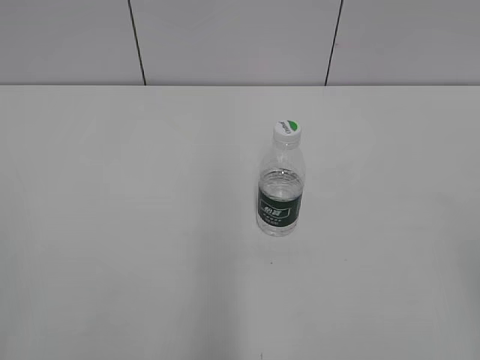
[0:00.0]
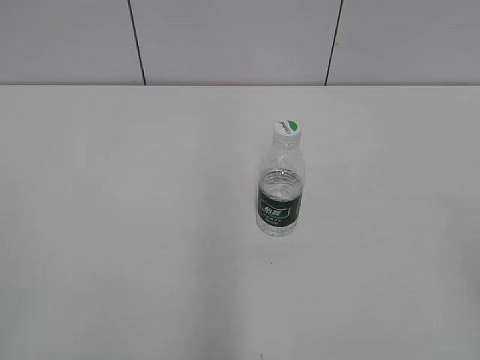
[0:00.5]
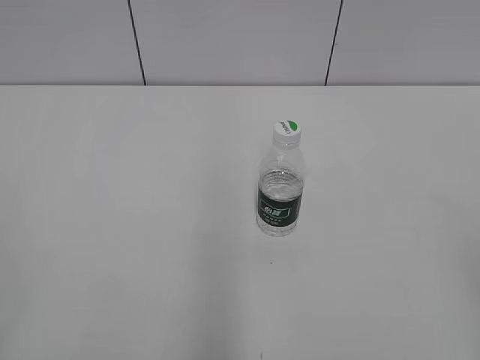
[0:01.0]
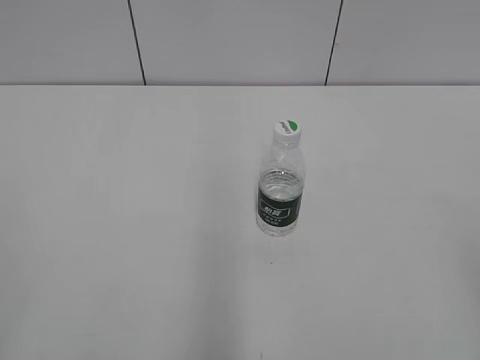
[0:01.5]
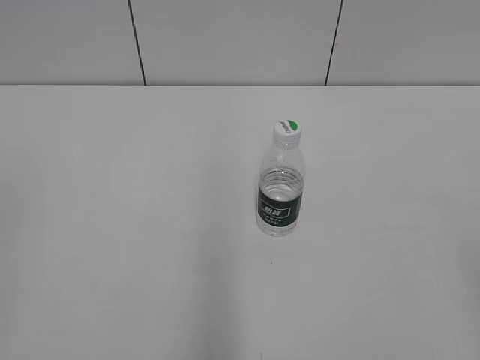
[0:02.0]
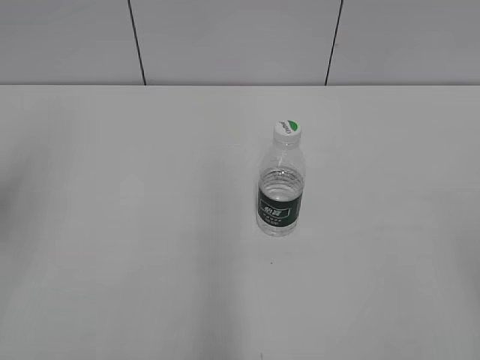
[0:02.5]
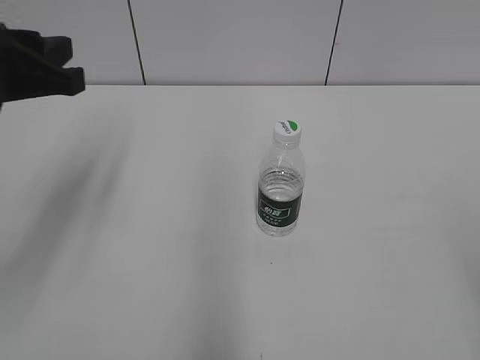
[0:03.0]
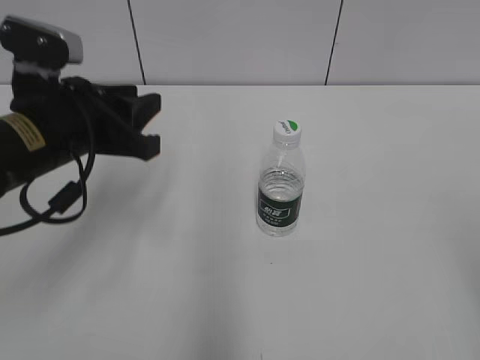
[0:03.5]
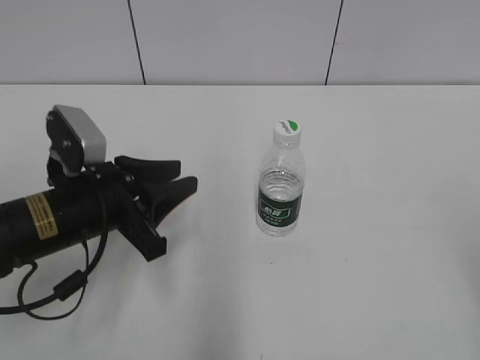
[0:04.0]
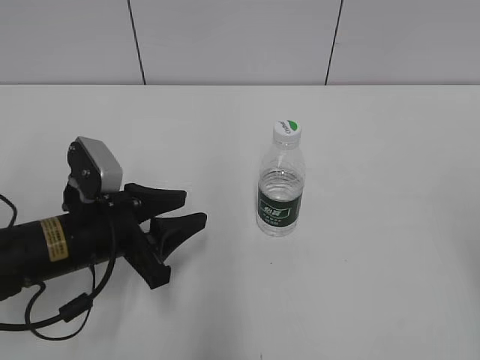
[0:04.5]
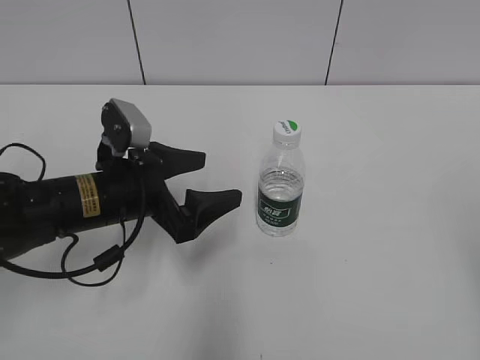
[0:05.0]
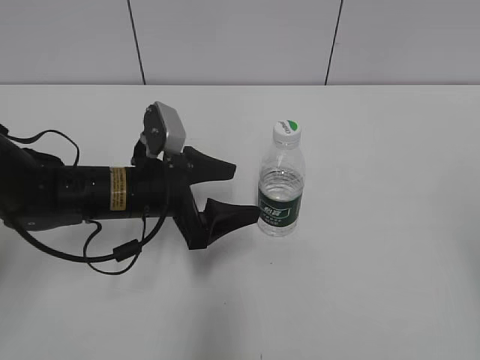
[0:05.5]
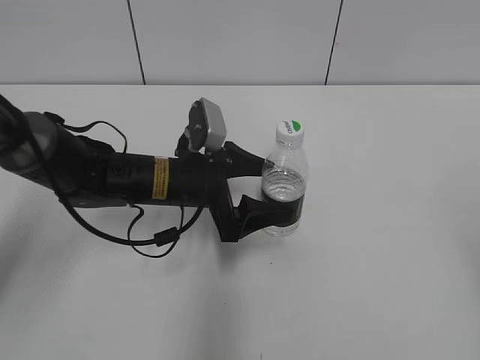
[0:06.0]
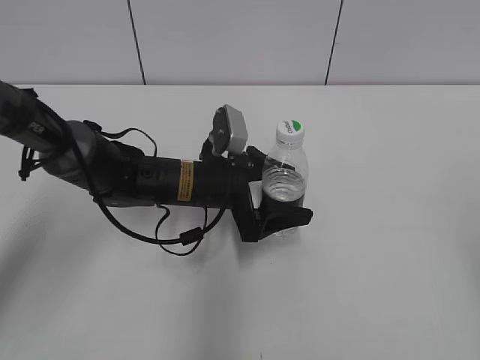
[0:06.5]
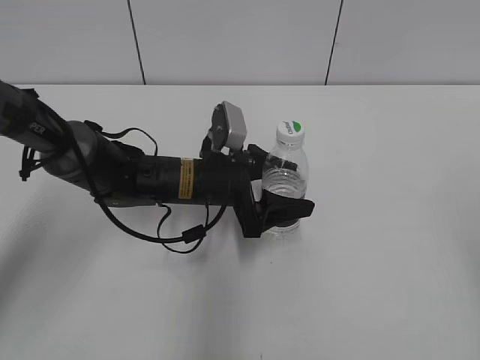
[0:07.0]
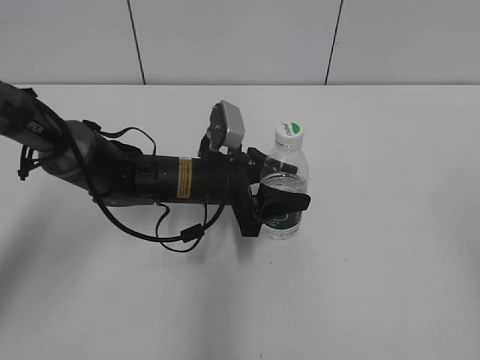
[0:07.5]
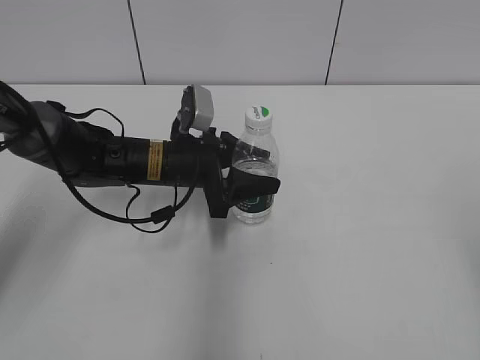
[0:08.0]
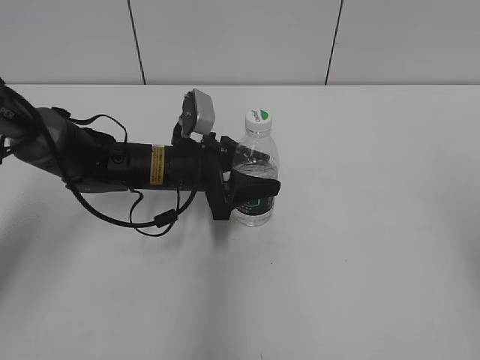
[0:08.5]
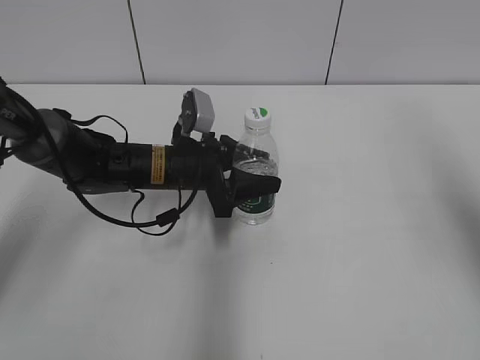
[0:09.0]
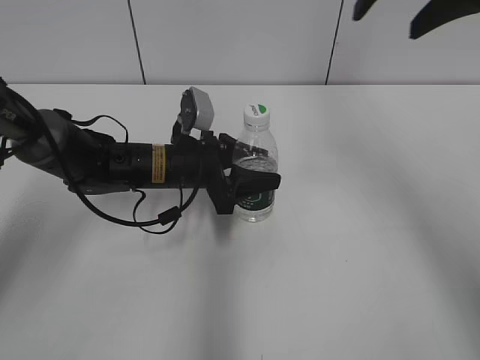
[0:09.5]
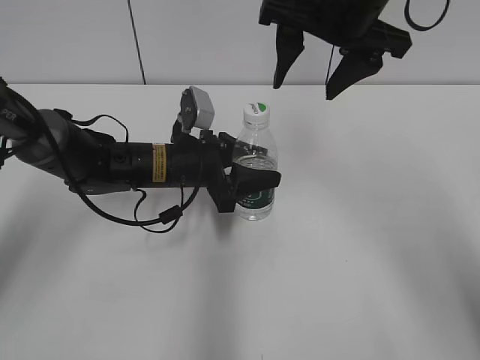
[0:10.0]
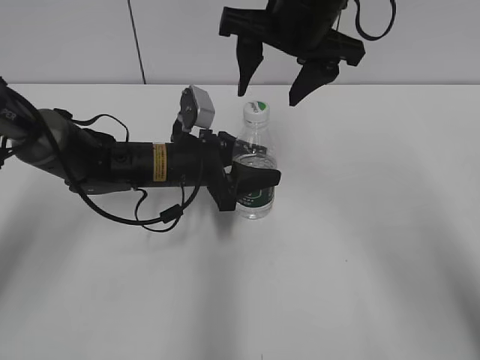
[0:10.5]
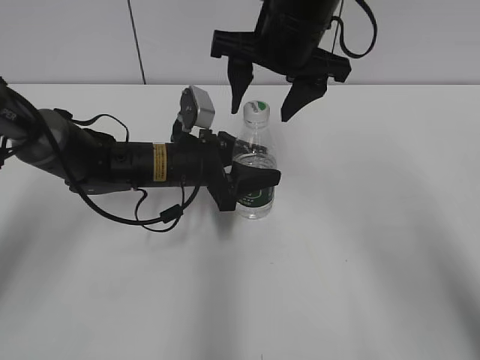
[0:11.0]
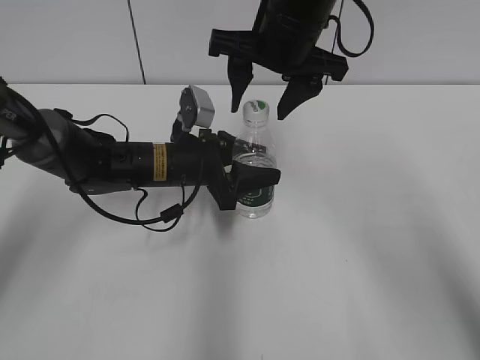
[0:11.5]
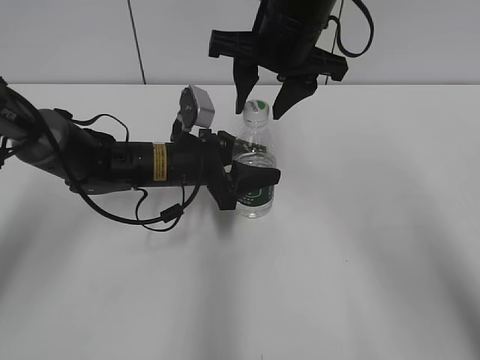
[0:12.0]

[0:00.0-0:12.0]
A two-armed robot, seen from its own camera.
Step, 0:00.0 to 0:07.0: Grasp the bottle and move it to the center of the table with the left gripper.
Step, 0:07.5 to 0:08.5: Lift the bottle and move it to the center of the table with the left gripper.
0:02.0 to 0:04.0: The left gripper travels forward, downward and to the right by about 35 cm.
0:04.0 to 0:06.0: The left gripper is displaced to the right and forward by some 10 cm, and opens.
0:06.0 to 0:08.0: The left gripper closes up.
0:08.0 to 0:10.0: The right gripper heads forward and to the left, covering some 35 cm.
0:10.0 to 0:12.0: The right gripper travels to the left by roughly 5 cm, and closes its fingers.

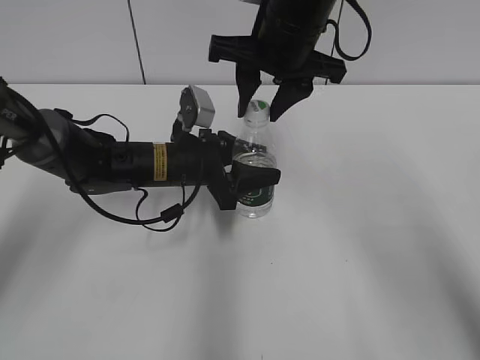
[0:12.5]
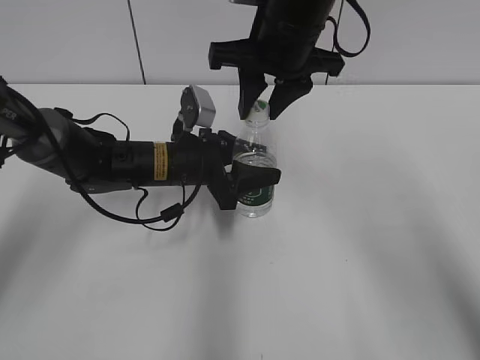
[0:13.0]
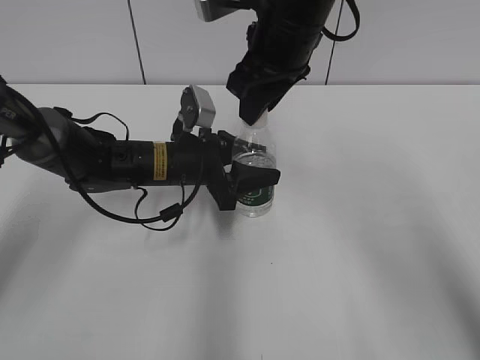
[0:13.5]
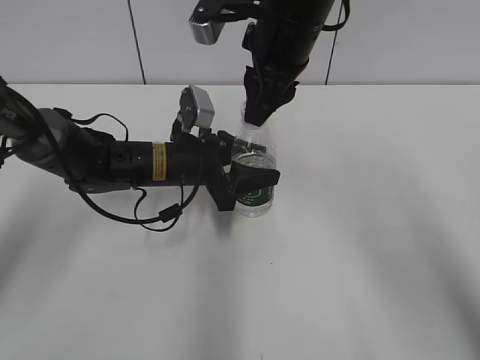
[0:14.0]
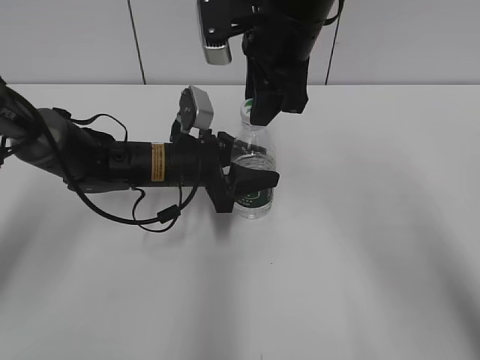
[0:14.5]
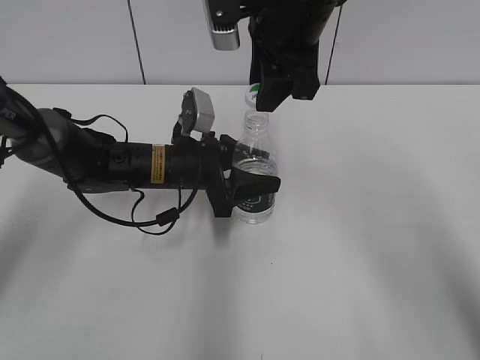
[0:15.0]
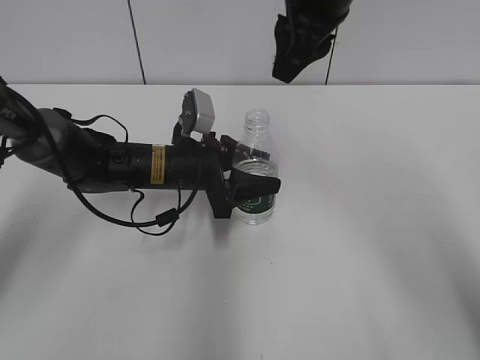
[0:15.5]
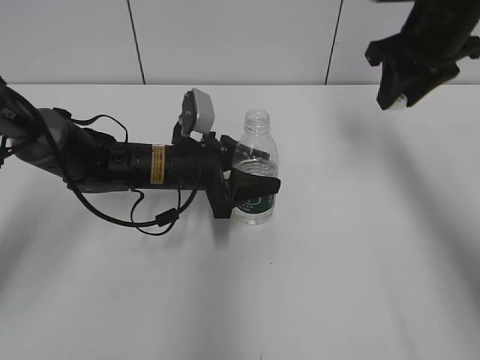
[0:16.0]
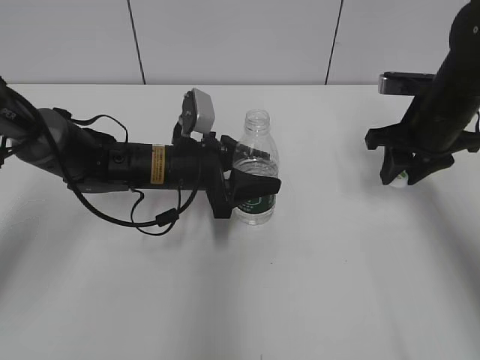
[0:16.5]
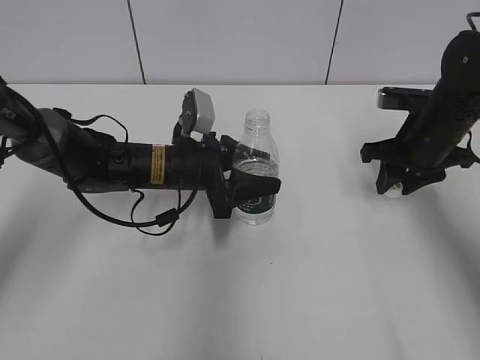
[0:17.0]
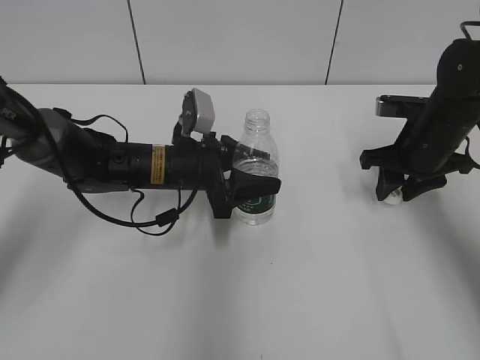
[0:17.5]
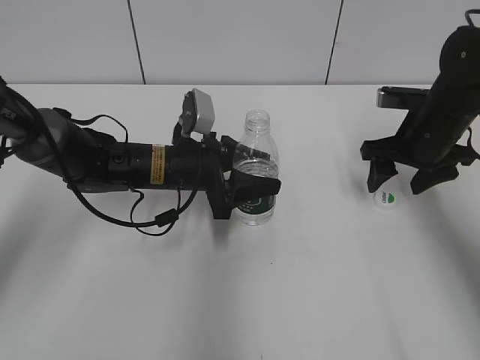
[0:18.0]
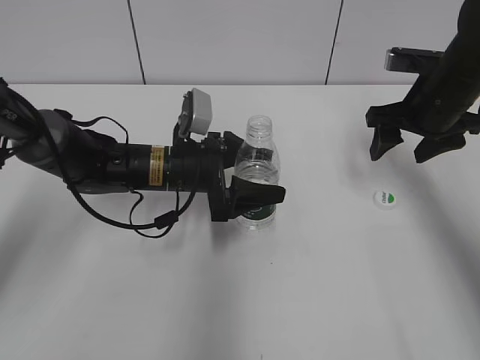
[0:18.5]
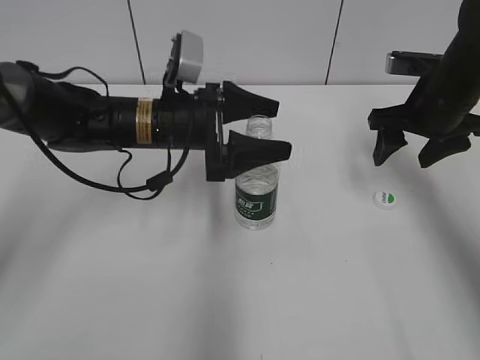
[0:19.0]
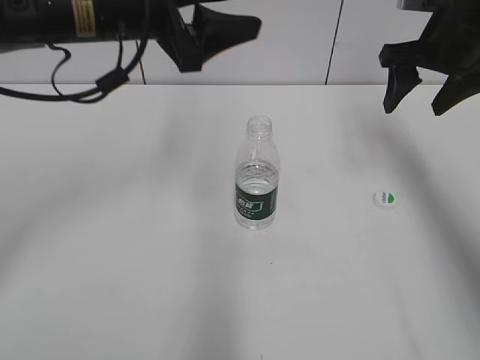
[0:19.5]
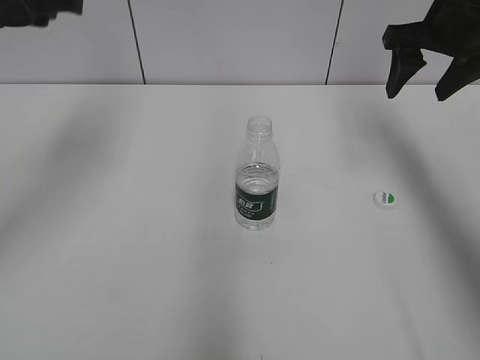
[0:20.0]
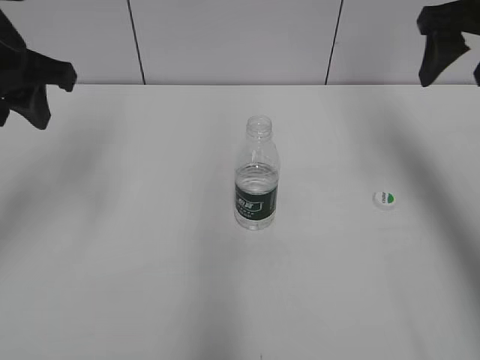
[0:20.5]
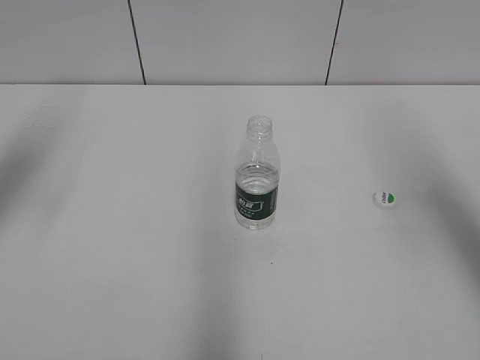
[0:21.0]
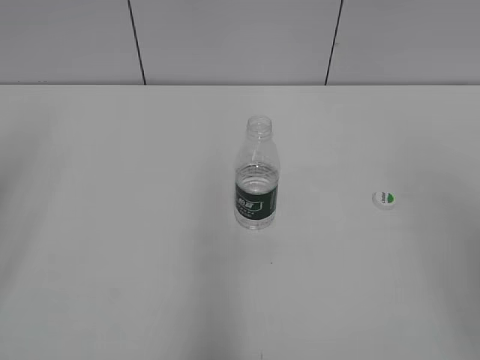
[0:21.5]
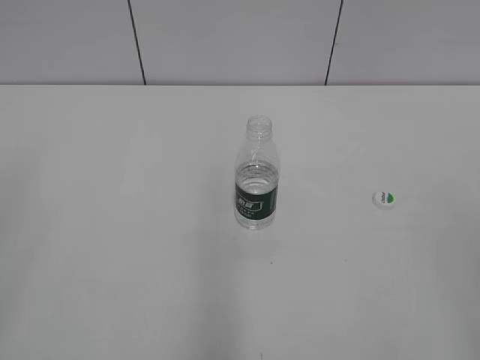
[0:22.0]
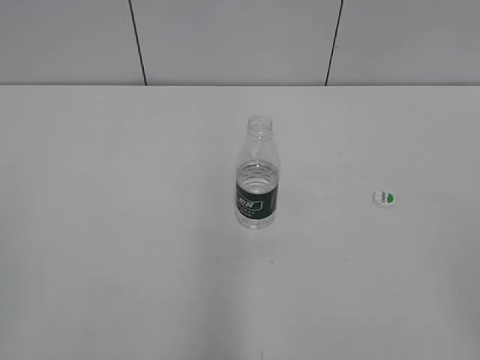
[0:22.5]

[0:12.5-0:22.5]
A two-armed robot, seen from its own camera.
Step, 0:12.5 to 0:15.5: Unscrew the bottle cap with the right gripper while holding the bottle with the left gripper.
Step, 0:16.0 to 0:18.0: Place the bottle cap on the table with the right gripper.
Step, 0:18.5 to 0:19.5: Place the bottle on the table with the left gripper.
0:14.5 to 0:16.5: The right gripper heads to the right and downward, covering some 20 cm.
0:16.5 to 0:18.5: The left gripper opens its fingers. Meanwhile the right gripper opens up.
0:18.5 to 0:20.5: The left gripper travels upward and to the left by about 25 cm, and closes up; the right gripper heads upward, covering about 15 cm.
0:20.5 to 0:22.5: The two grippers go roughly 35 cm backward.

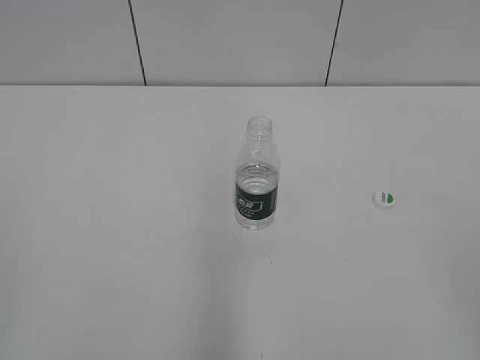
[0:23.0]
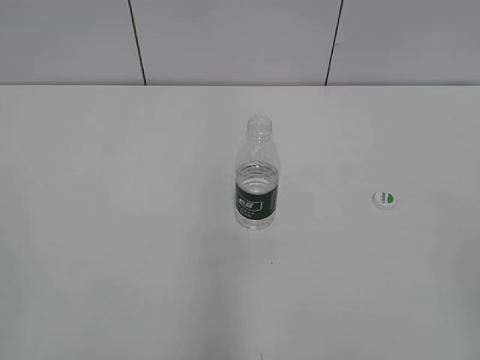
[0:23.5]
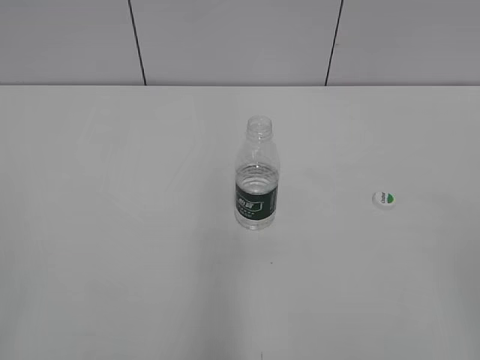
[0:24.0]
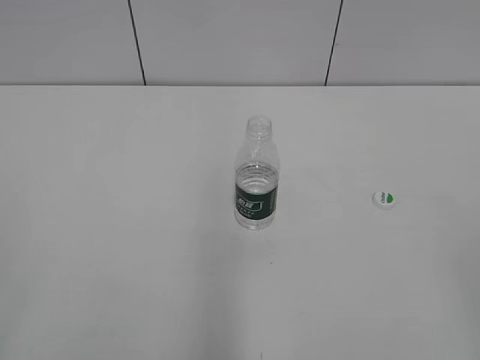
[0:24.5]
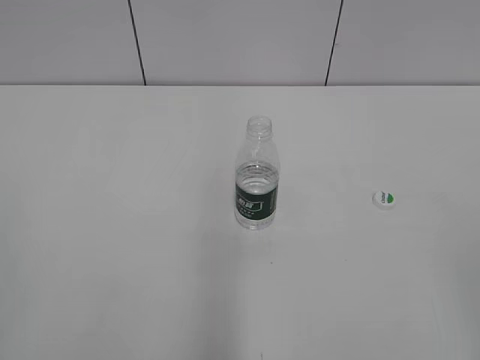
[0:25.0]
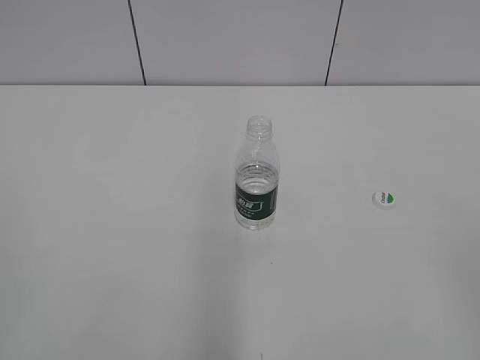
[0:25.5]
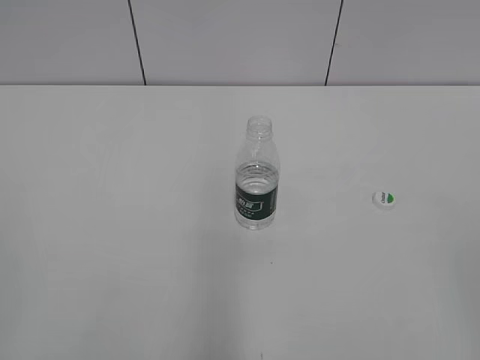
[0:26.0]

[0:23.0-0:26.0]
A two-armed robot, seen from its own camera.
0:23.0 to 0:24.5: Neither gripper changes place.
